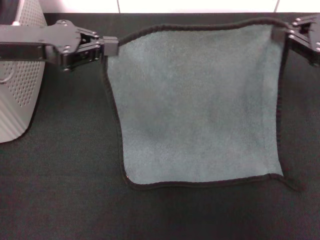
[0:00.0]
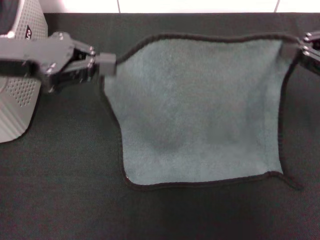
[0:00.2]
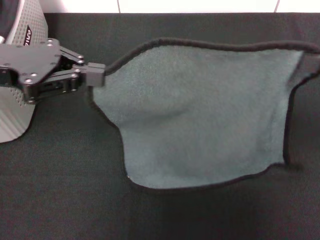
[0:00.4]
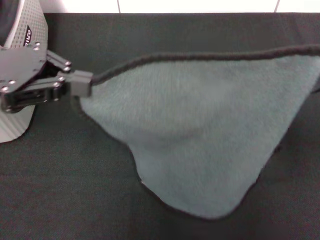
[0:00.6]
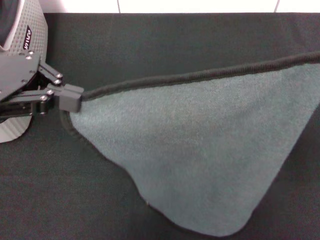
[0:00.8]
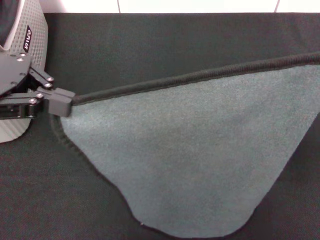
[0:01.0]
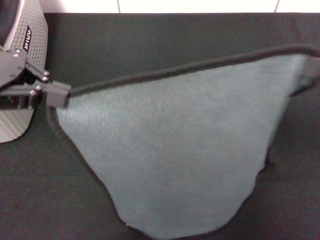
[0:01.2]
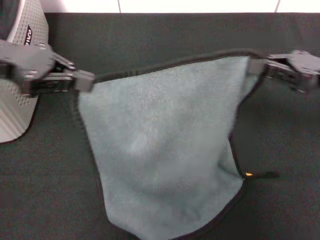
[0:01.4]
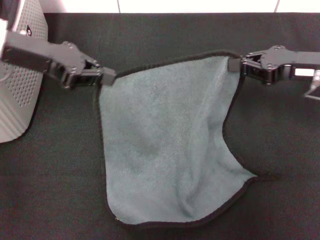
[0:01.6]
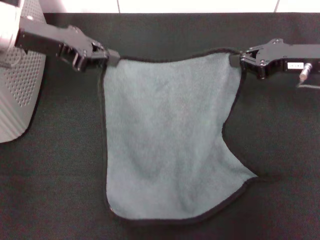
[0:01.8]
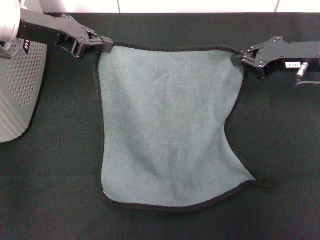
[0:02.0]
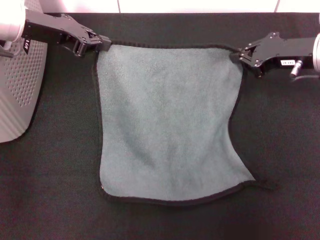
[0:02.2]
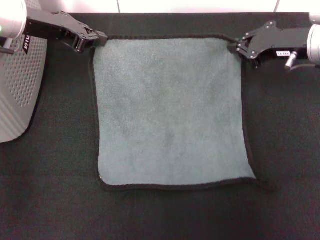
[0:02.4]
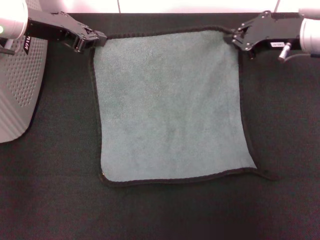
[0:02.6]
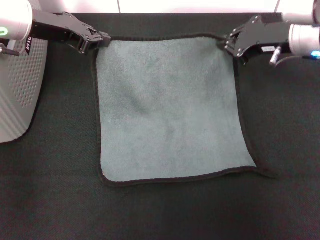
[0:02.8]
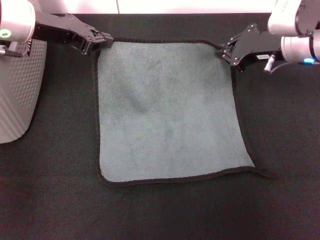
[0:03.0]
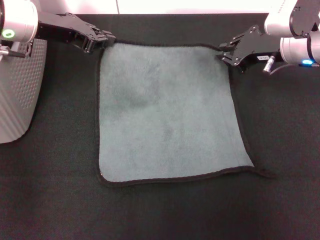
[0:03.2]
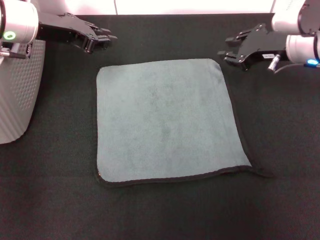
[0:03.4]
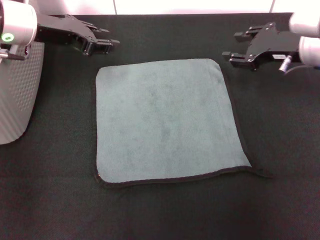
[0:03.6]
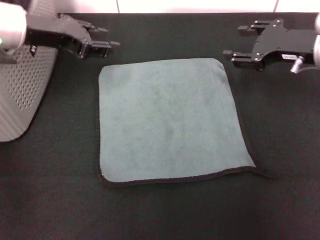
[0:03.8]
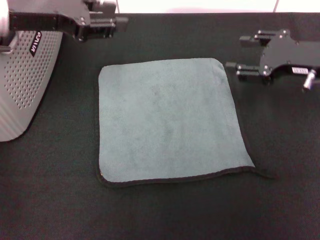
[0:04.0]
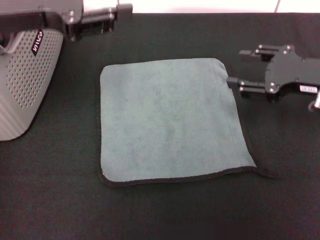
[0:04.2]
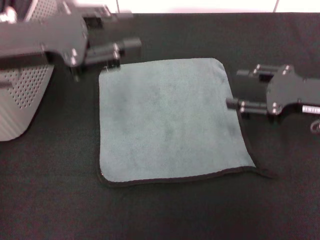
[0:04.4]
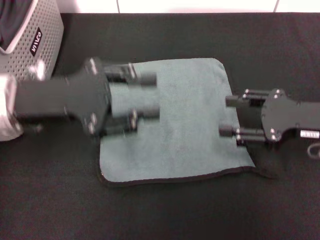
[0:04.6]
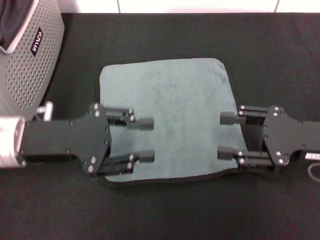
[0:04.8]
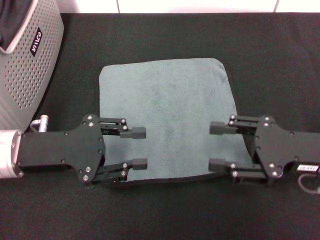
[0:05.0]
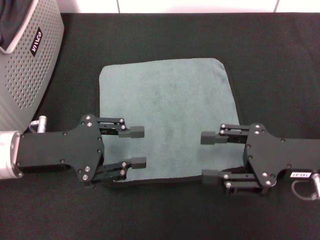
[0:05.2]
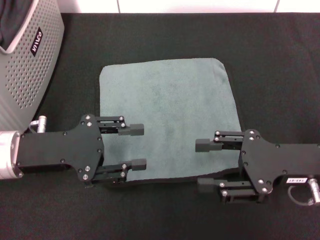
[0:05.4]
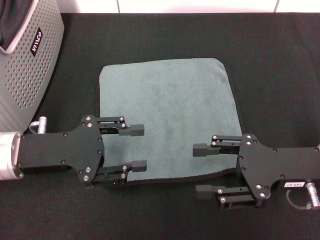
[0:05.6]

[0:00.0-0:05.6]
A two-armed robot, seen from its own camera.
Task of the whole recording: pick up the towel from the storage box and lay it flat on the black tablecloth.
Step, 0:00.0 to 0:03.2: Spread the towel flat with the right gripper.
0:00.0 to 0:01.4: The right gripper moves some 10 cm backward and comes back.
0:01.4 to 0:02.8: The right gripper moves forward and to the left, some 10 cm, while the left gripper heads forward, covering roughly 5 cm.
0:02.8 to 0:04.2: The right gripper moves backward and to the right, some 10 cm, and opens its fingers, while the left gripper goes approximately 10 cm backward and upward, and opens.
0:04.2 to 0:05.6: The left gripper is displaced downward and backward by approximately 15 cm. Meanwhile the right gripper goes approximately 10 cm backward and downward.
